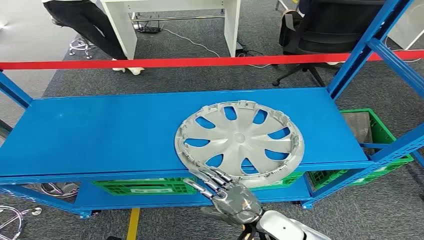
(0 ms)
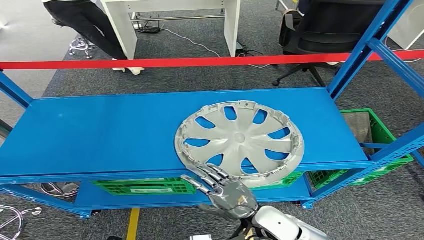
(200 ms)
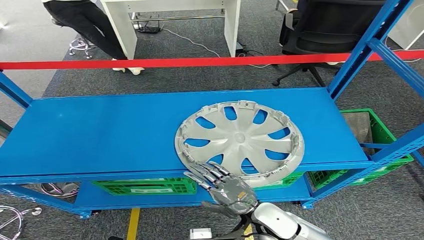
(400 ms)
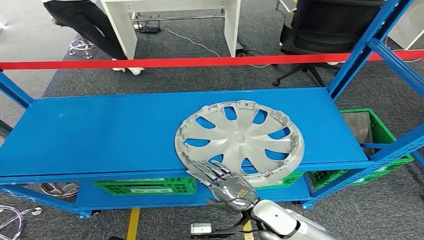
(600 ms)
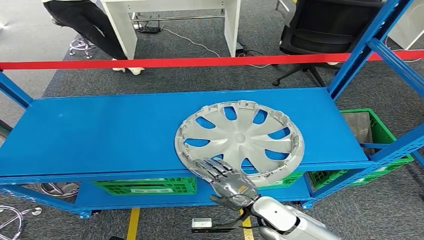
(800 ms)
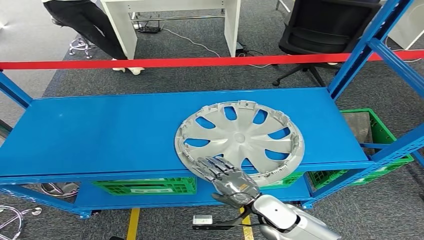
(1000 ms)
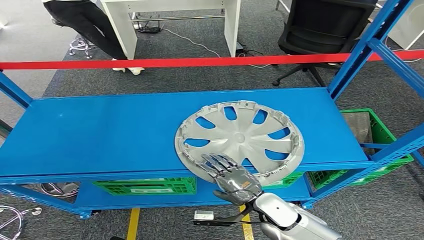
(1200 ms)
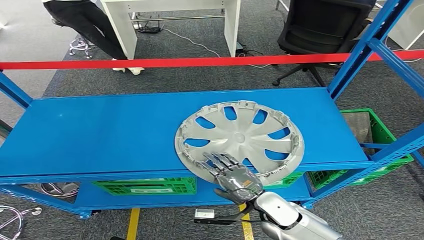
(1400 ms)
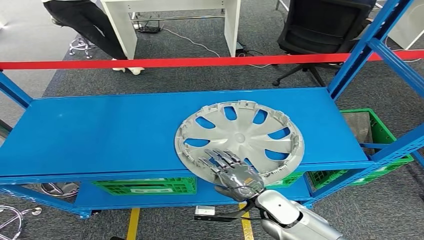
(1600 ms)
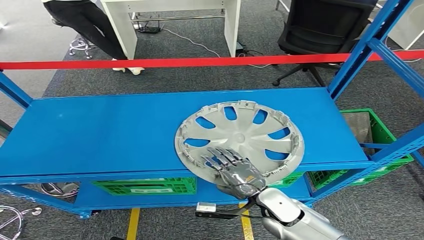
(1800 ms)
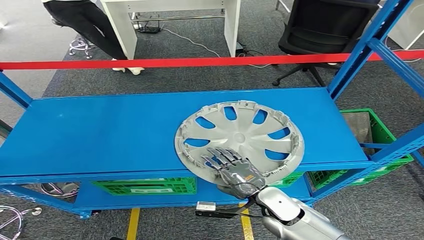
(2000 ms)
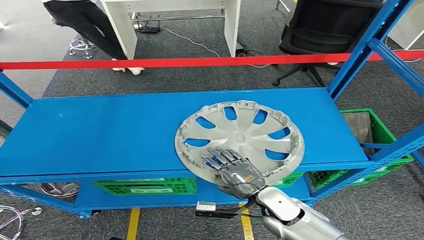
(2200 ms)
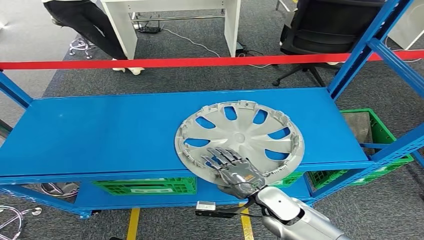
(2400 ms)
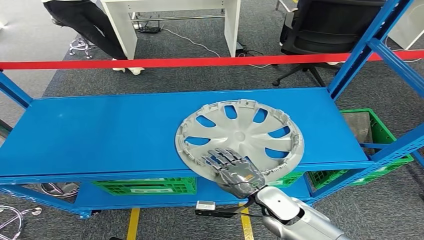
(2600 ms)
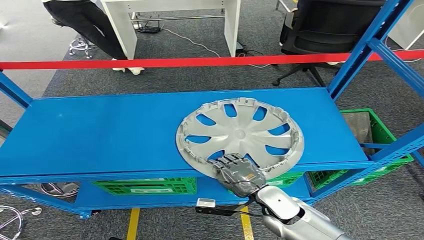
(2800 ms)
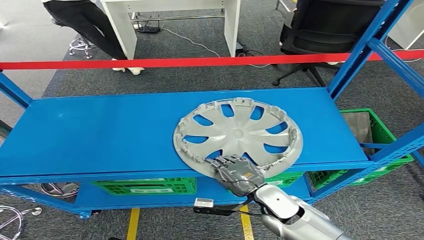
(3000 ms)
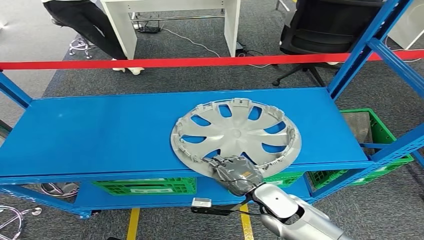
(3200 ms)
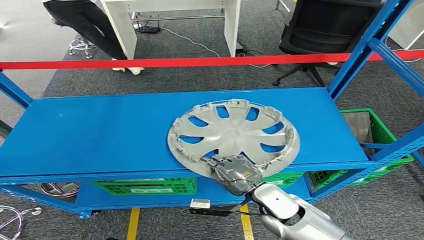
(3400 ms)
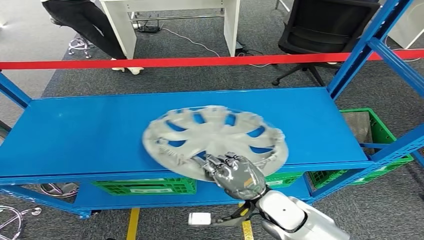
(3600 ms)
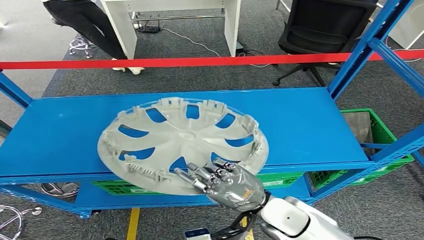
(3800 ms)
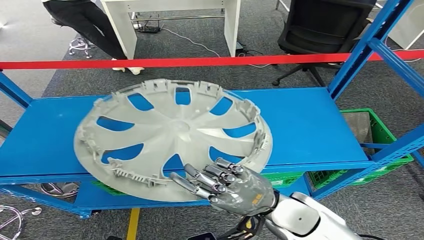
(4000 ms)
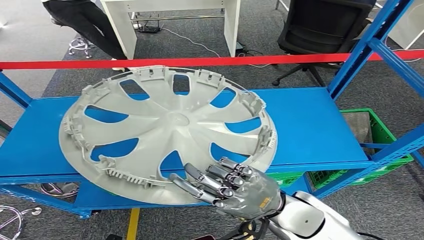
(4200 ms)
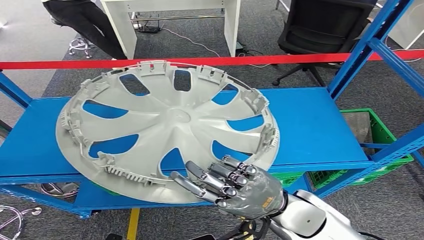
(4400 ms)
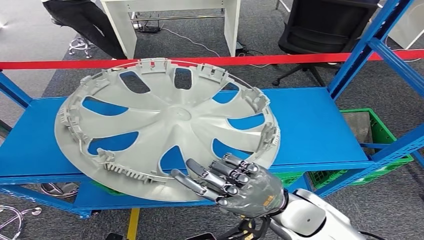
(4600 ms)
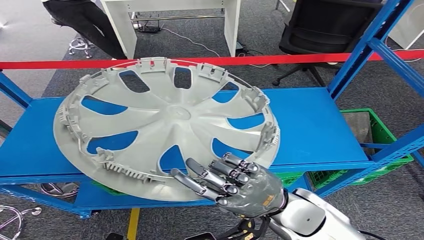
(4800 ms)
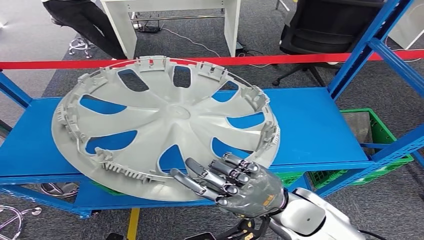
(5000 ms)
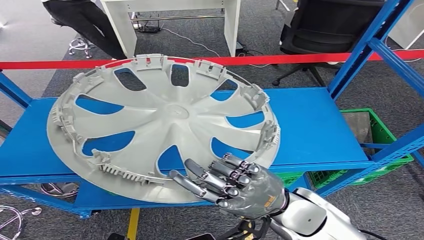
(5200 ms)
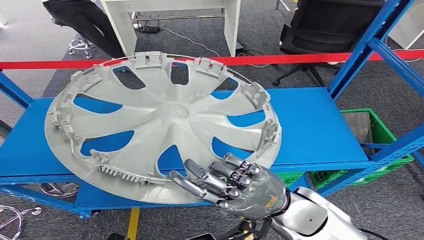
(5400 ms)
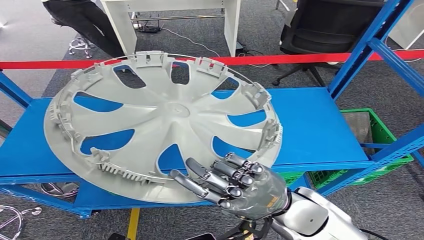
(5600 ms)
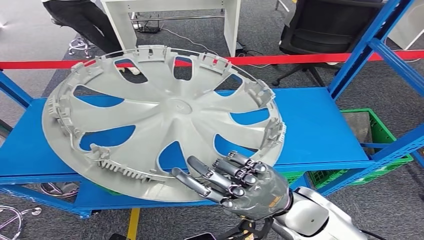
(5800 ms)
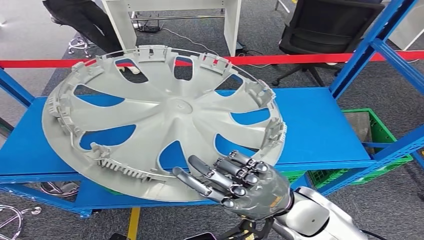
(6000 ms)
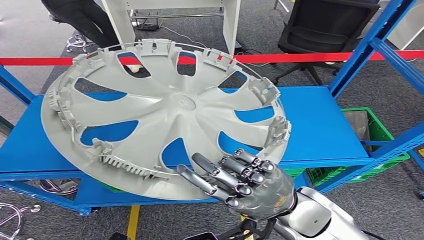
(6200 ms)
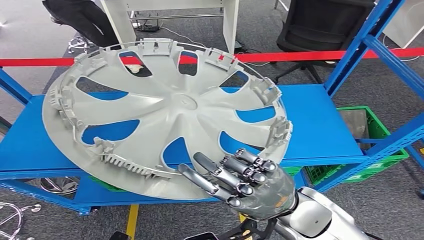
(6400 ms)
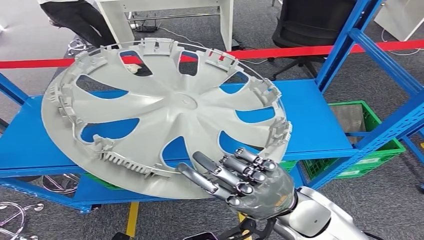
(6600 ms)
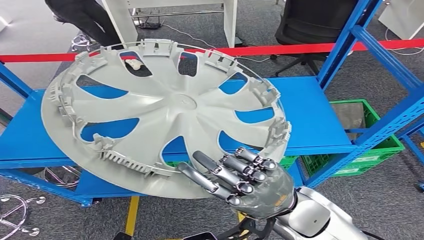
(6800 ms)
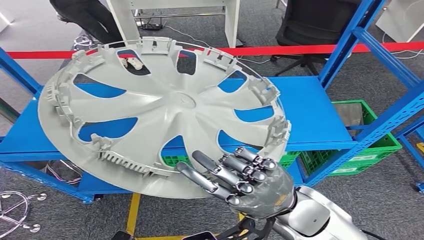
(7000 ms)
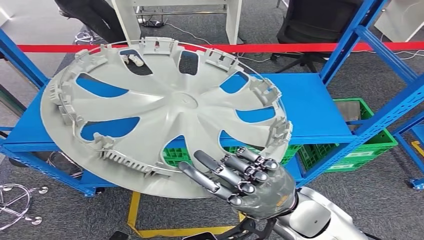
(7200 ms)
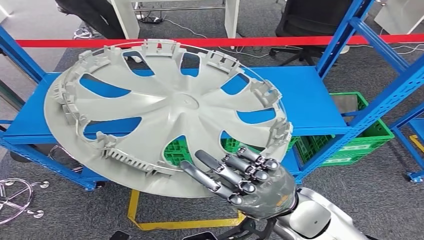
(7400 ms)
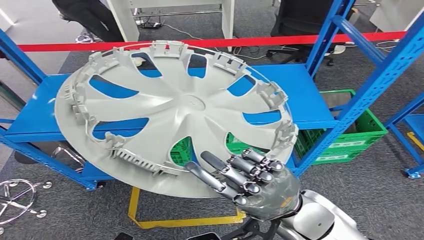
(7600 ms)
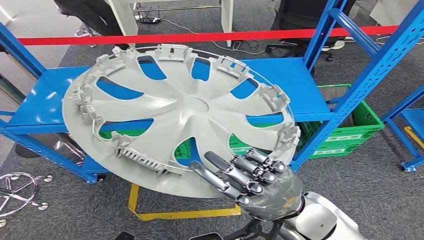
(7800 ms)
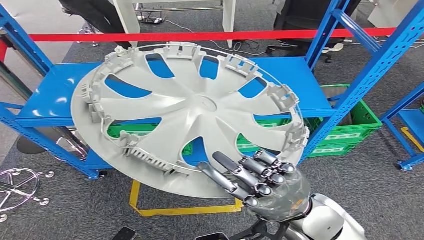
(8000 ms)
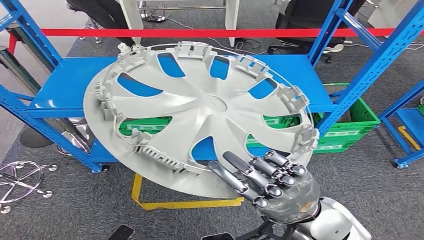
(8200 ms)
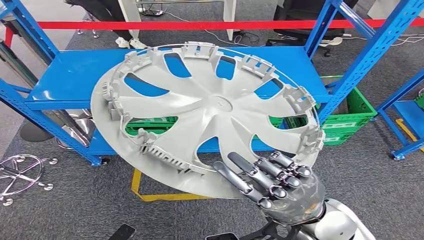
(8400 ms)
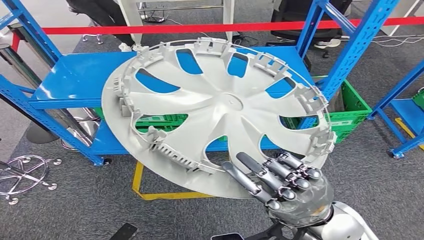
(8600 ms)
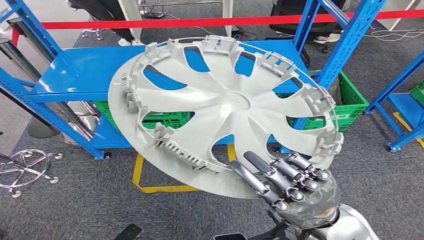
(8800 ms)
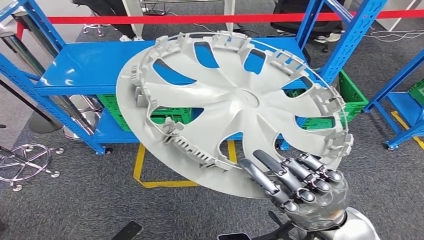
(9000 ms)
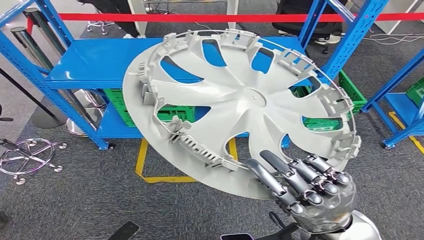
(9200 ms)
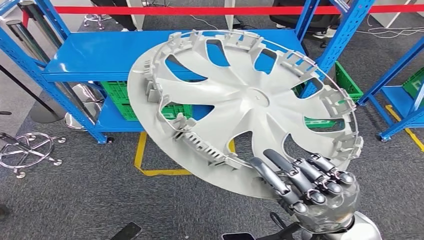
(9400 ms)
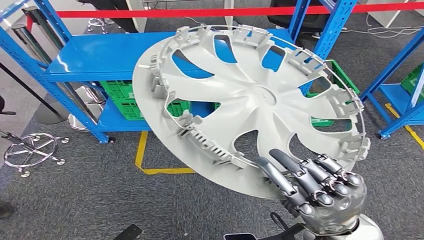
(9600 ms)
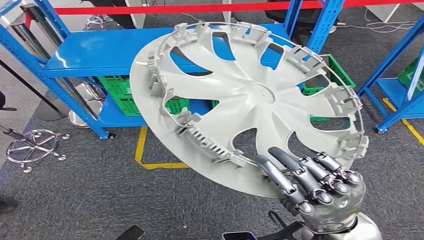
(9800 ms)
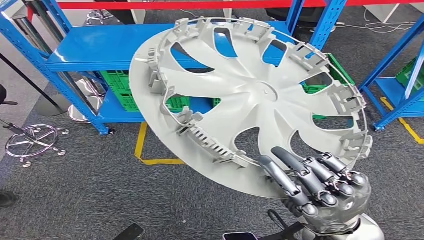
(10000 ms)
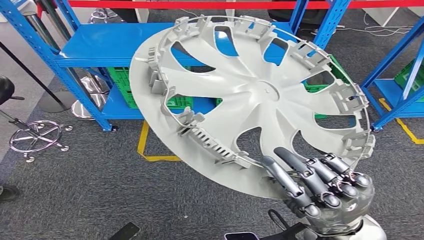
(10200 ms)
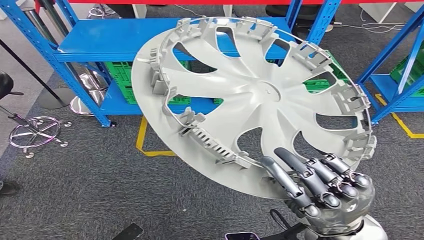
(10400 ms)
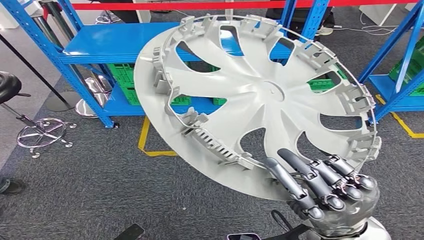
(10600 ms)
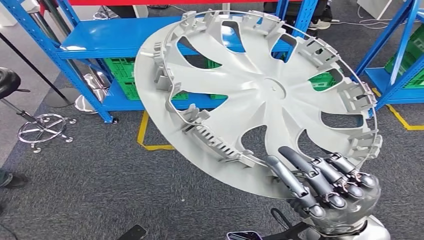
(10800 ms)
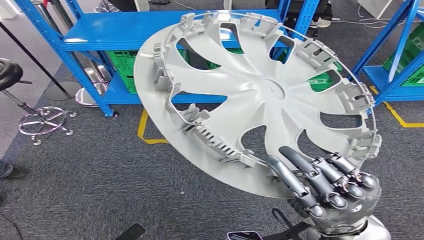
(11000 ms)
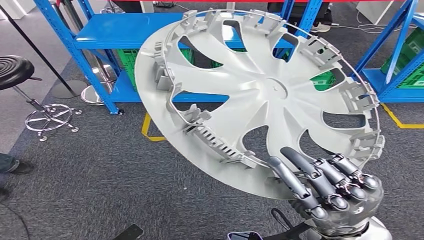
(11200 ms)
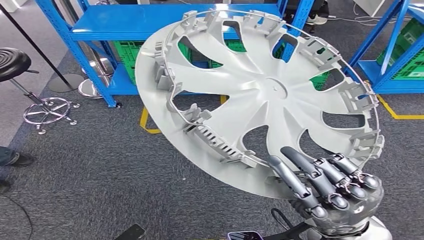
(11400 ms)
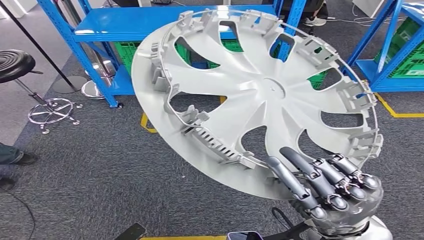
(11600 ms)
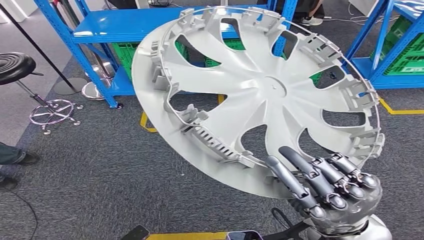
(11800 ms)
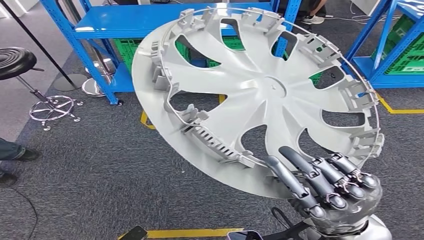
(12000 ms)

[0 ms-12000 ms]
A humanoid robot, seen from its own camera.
Step, 0 ms to 6600 ms: Pick up the small component from the shelf.
1600 ms to 3000 ms: There are only small adjustments of the hands.

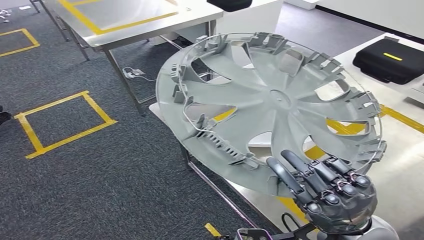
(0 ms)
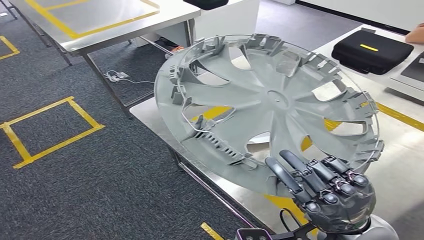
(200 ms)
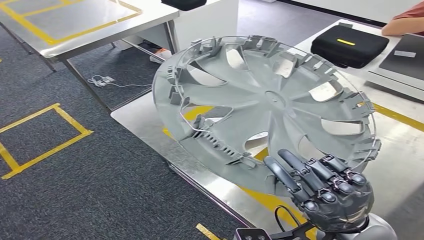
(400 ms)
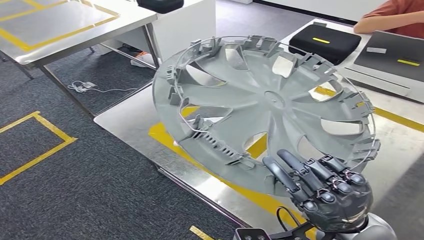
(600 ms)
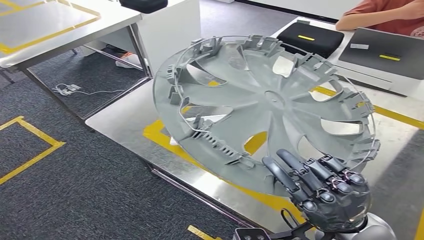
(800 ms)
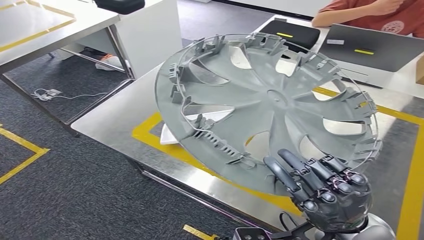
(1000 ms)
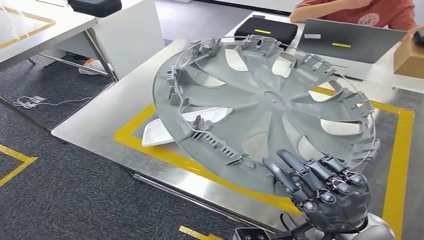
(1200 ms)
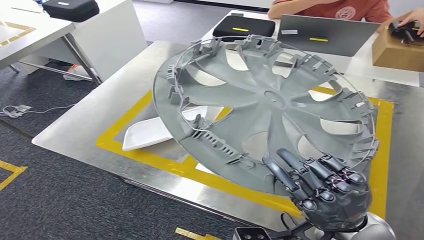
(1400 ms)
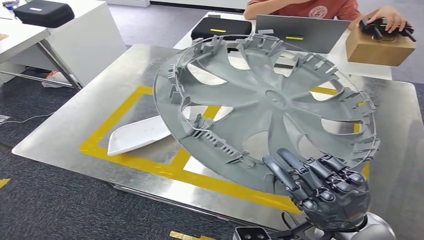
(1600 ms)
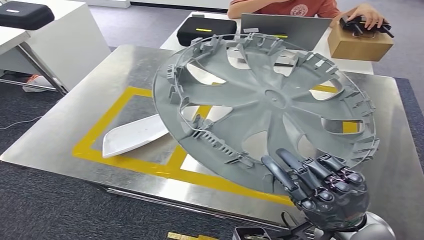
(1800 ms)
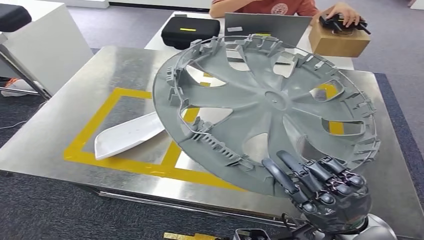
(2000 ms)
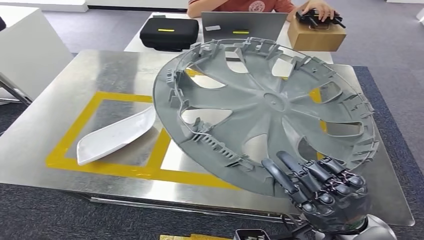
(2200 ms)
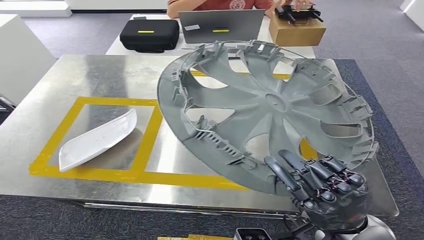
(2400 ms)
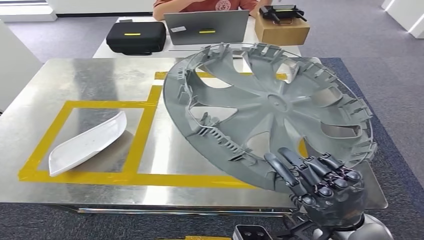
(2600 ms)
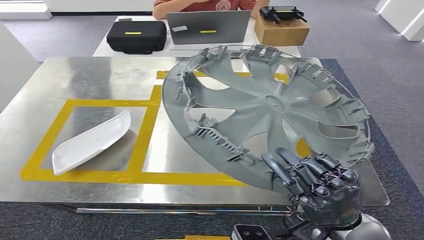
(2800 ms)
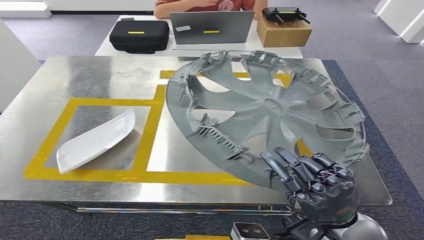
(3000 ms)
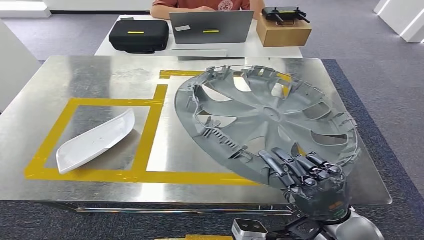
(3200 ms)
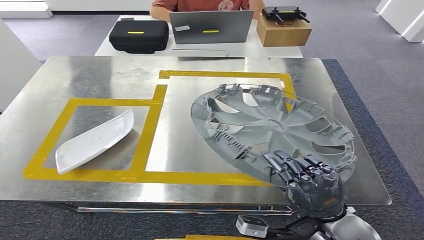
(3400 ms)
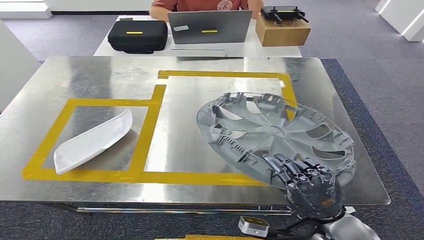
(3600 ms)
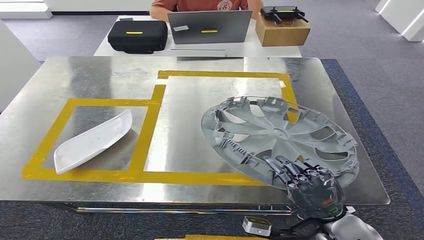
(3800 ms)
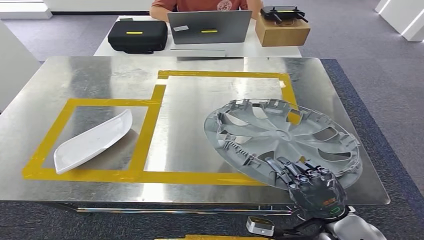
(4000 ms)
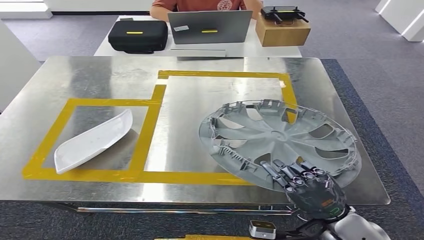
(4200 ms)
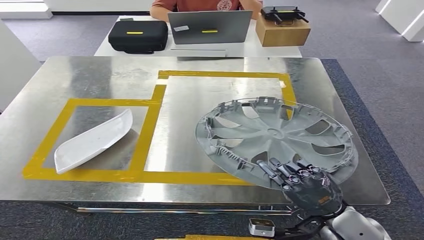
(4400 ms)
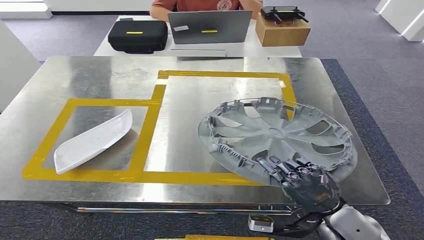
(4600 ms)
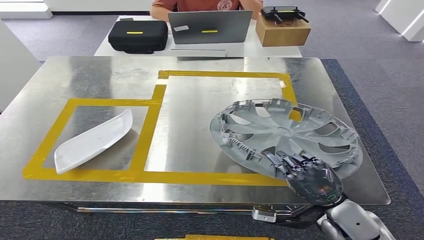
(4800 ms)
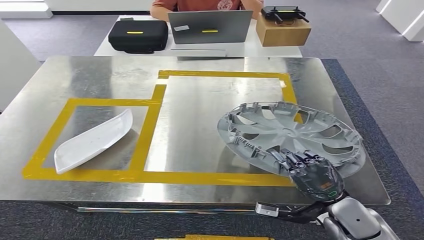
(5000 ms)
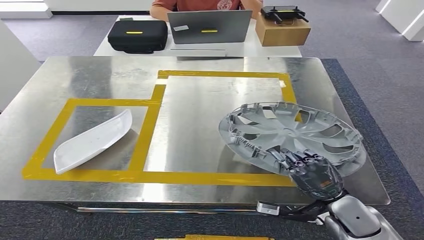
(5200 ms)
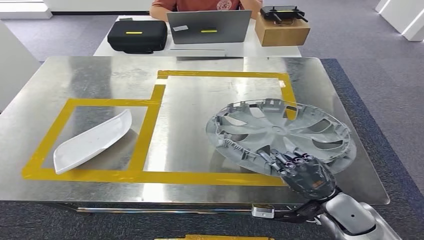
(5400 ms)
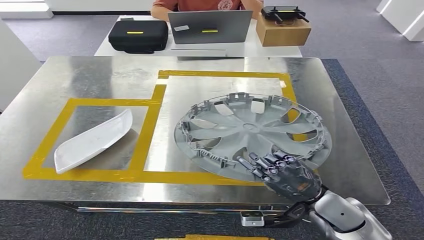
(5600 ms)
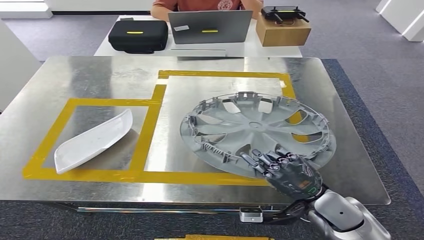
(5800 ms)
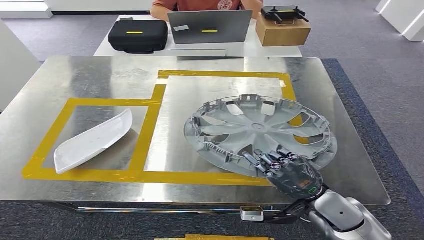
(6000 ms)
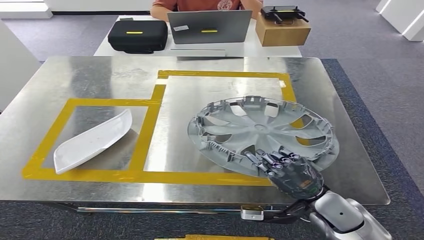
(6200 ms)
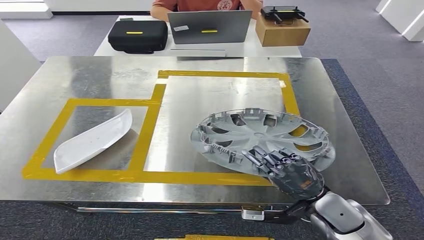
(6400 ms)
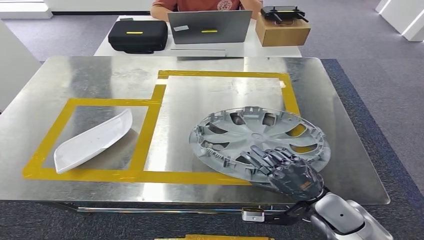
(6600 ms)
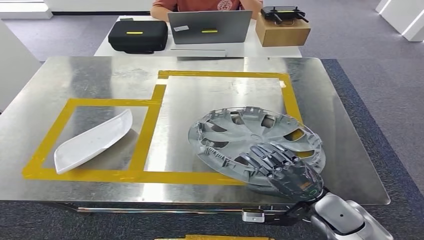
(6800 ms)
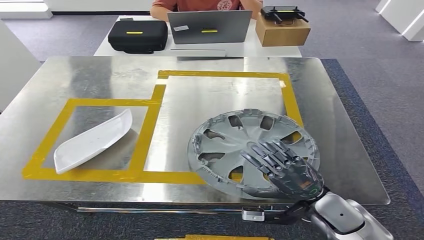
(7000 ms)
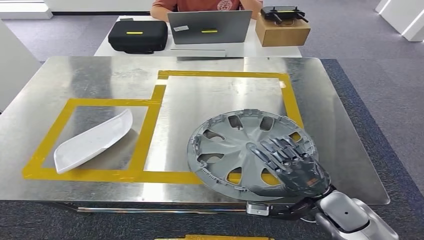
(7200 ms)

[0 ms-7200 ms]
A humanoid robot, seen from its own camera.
4400 ms to 7200 ms: The hands make only small movements.
